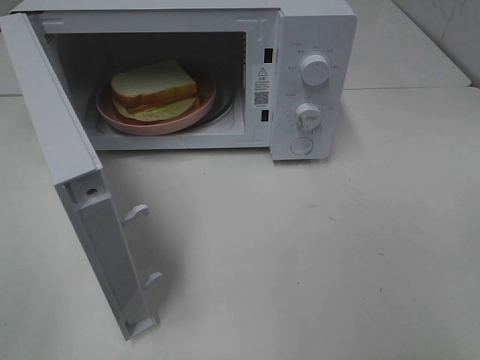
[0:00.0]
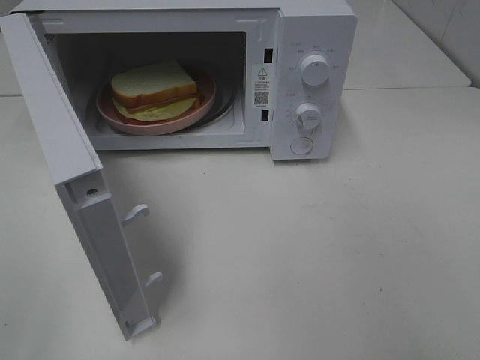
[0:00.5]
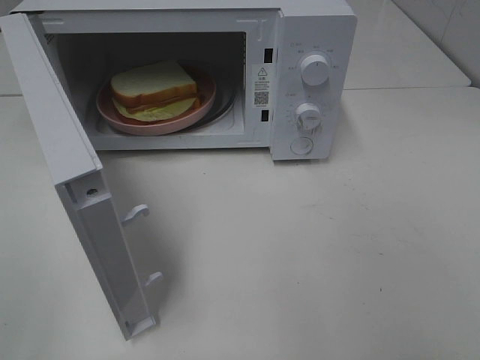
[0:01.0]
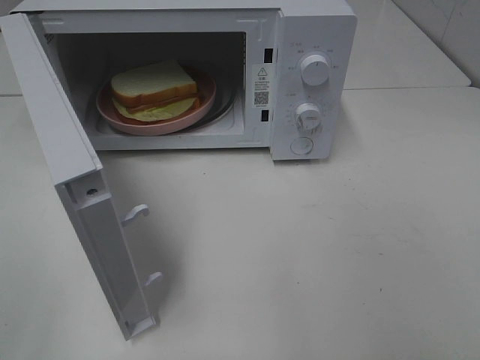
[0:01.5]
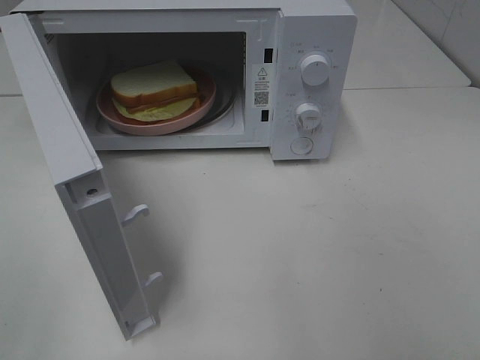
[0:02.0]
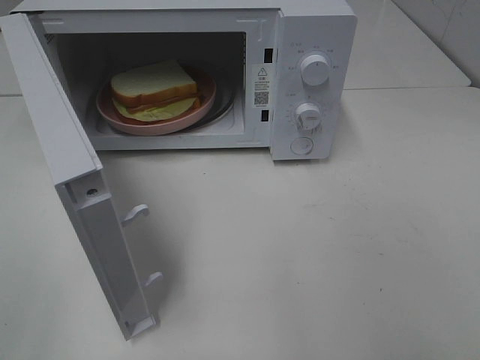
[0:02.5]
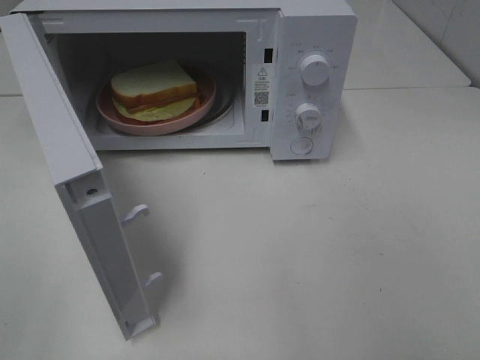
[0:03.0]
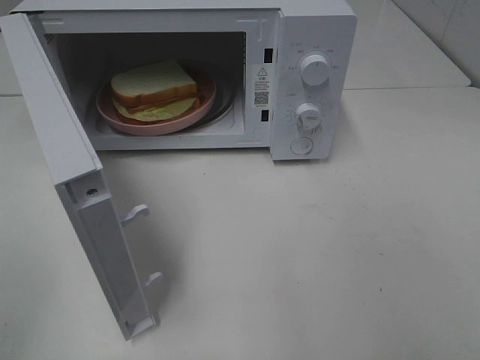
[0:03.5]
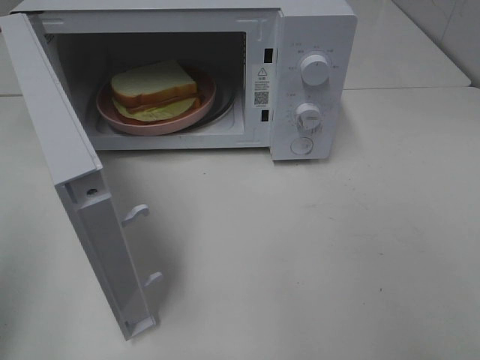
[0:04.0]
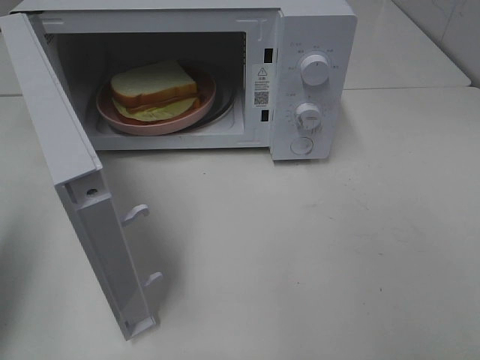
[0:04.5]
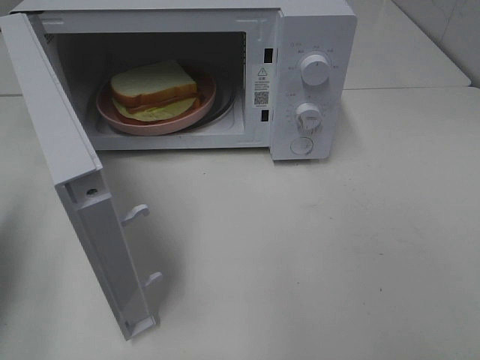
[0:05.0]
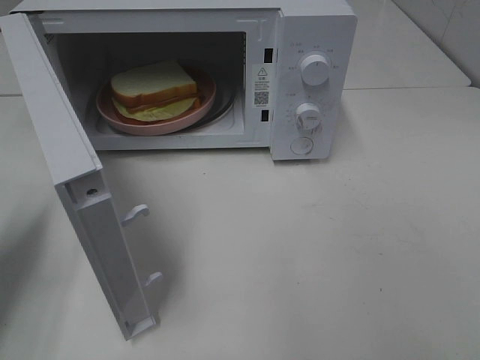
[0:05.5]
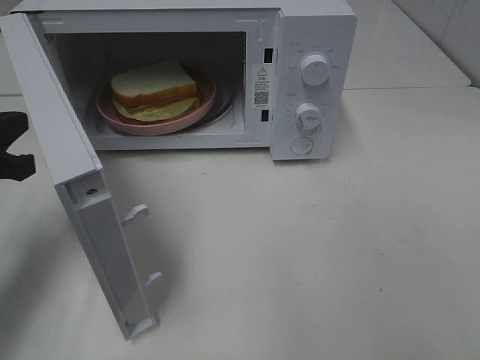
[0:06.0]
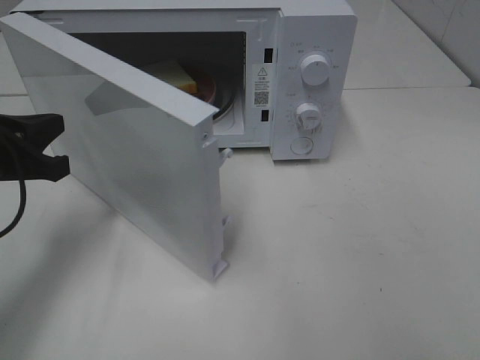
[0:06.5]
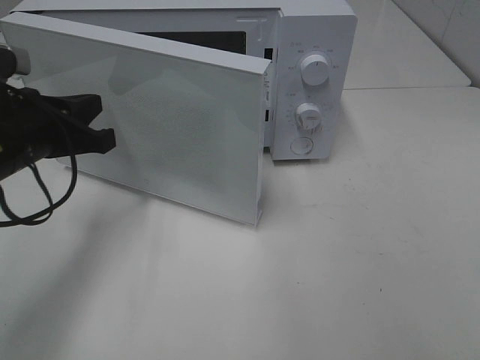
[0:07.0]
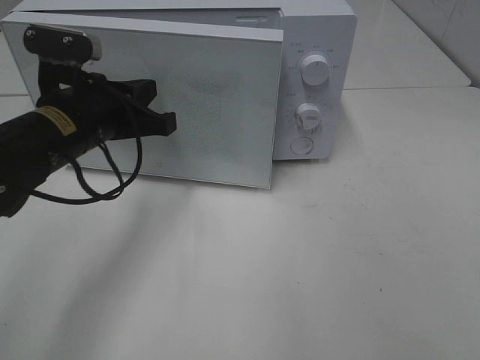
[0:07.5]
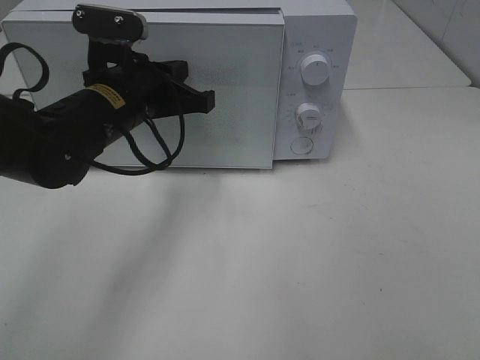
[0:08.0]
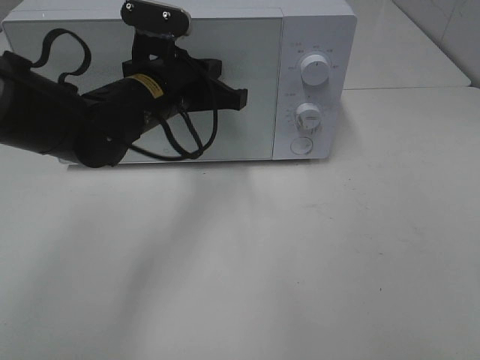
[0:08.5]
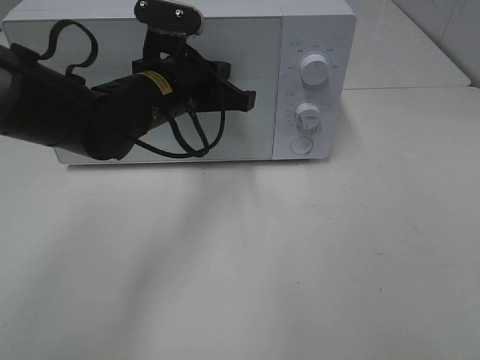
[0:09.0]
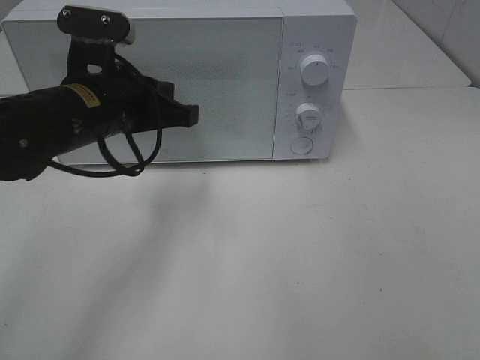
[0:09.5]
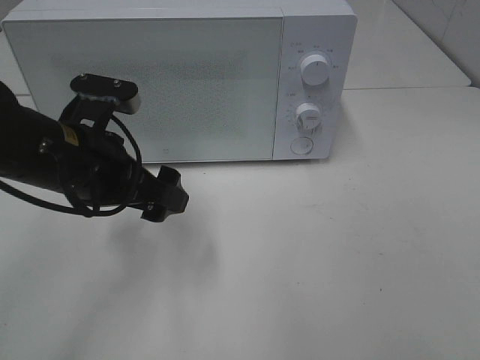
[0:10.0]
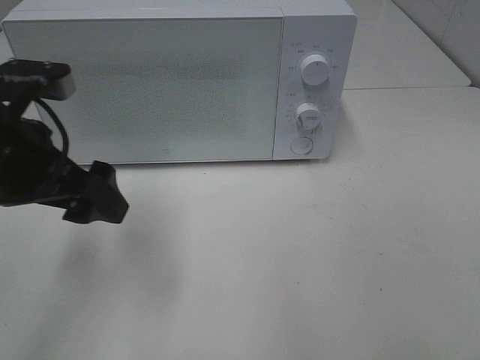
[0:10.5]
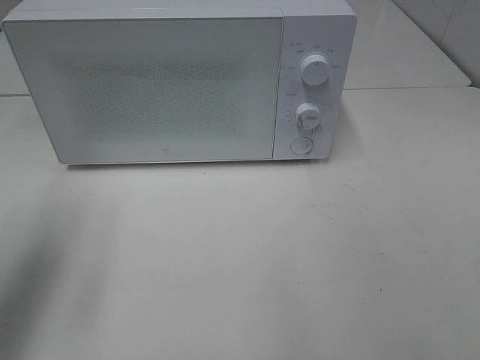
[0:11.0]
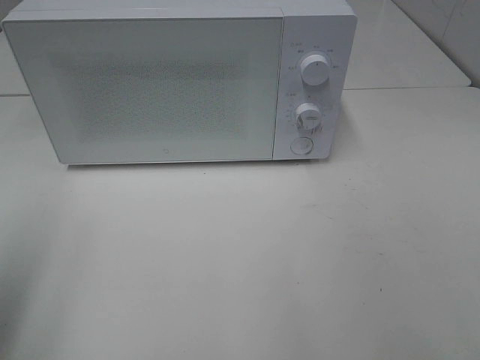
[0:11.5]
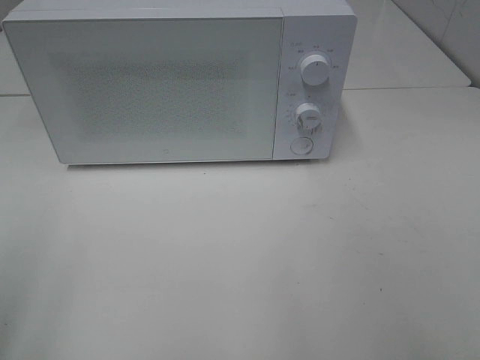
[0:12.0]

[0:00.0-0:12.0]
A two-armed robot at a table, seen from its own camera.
Task of the whole recording: Heat Sandwich.
Step, 0:00.0 to 0:09.0: Left hand: close the microwave door.
0:04.0 to 0:06.0: The left gripper shifts some 20 cm forward and downward.
0:06.0 to 0:08.0: The left gripper heads to the right and forward, covering about 20 cm.
0:08.0 to 0:10.0: The left gripper travels backward by about 5 cm, and opens its fingers.
0:10.0 to 0:12.0: The left gripper goes approximately 25 cm backward, to the left and upward.

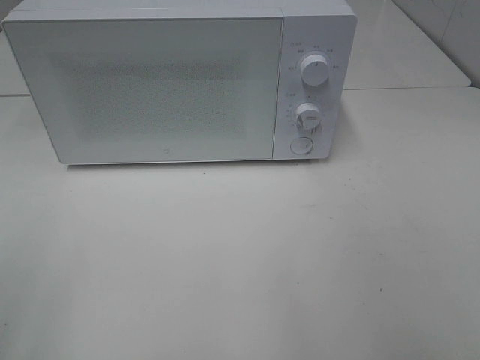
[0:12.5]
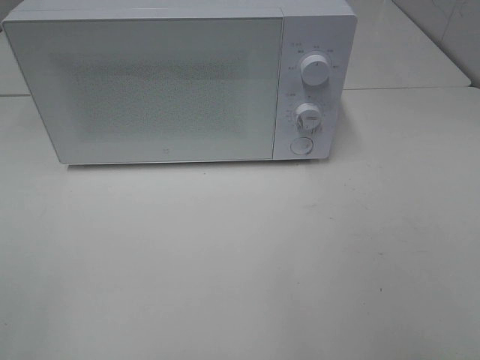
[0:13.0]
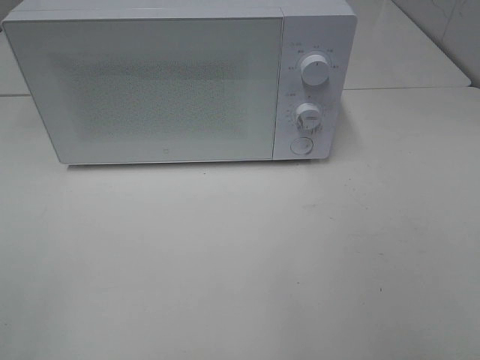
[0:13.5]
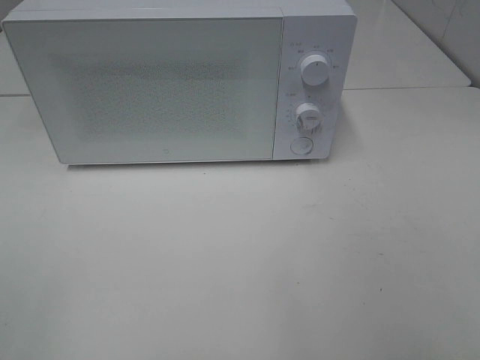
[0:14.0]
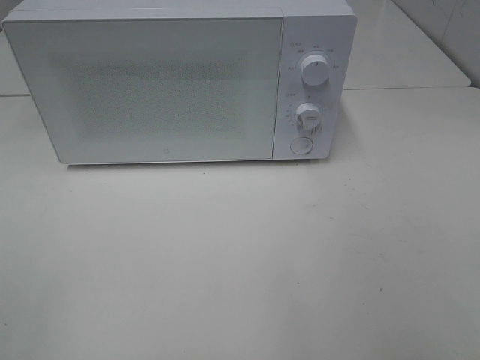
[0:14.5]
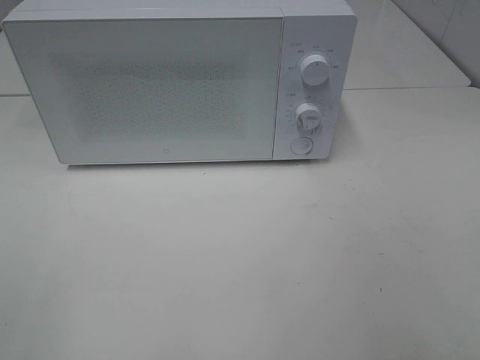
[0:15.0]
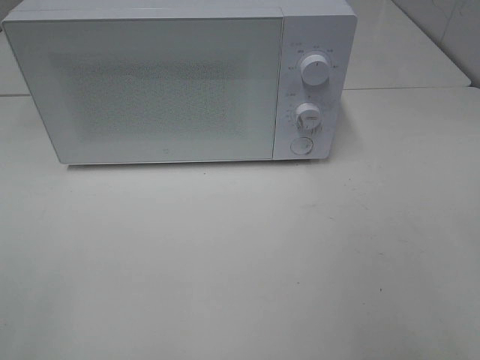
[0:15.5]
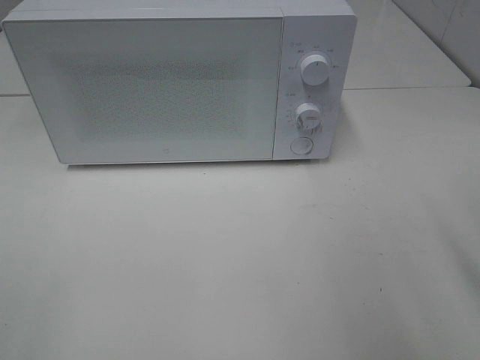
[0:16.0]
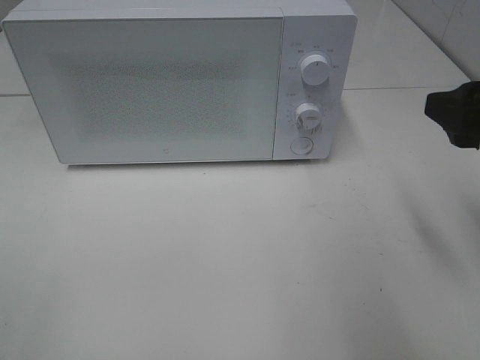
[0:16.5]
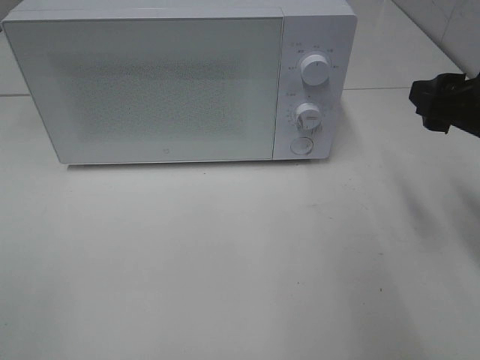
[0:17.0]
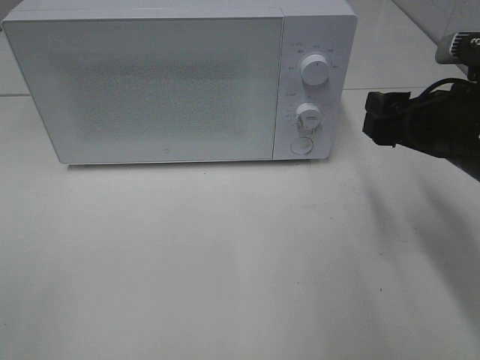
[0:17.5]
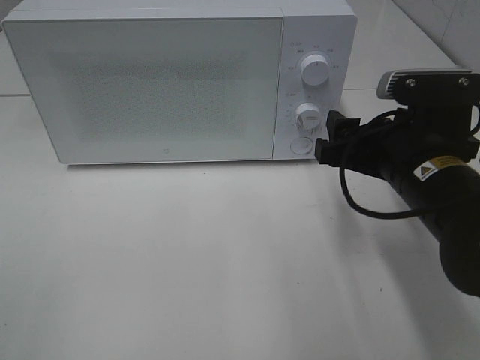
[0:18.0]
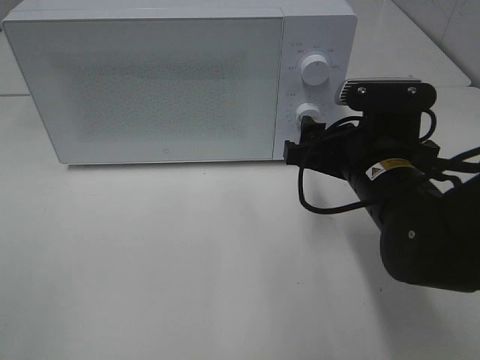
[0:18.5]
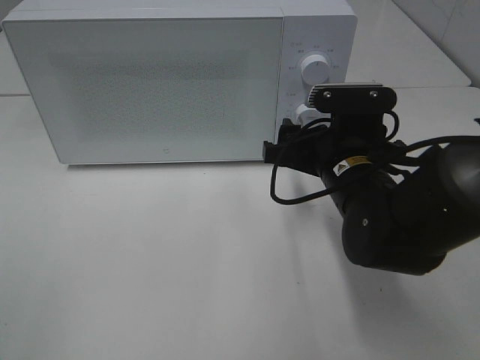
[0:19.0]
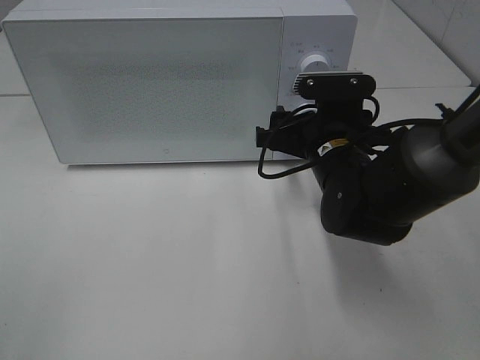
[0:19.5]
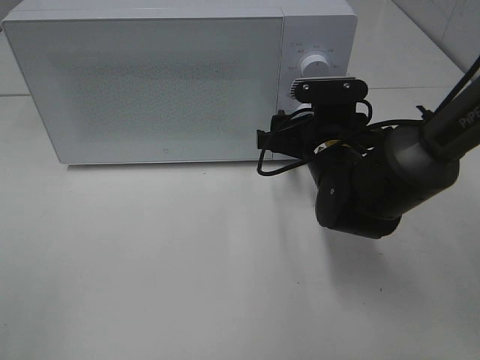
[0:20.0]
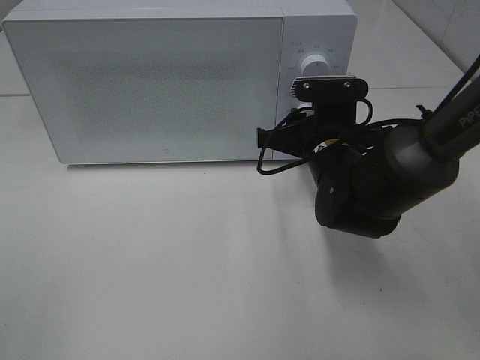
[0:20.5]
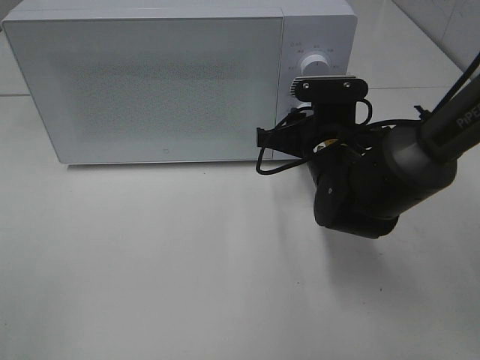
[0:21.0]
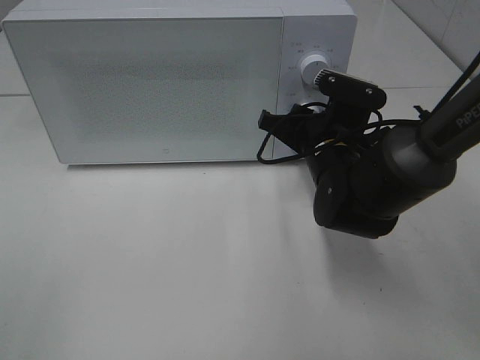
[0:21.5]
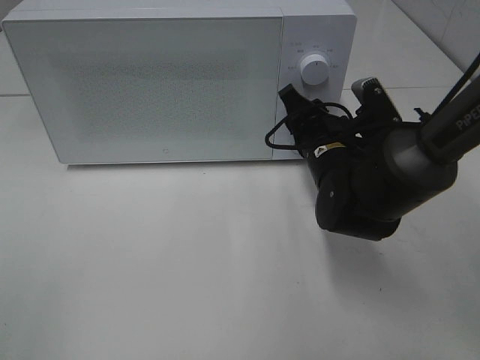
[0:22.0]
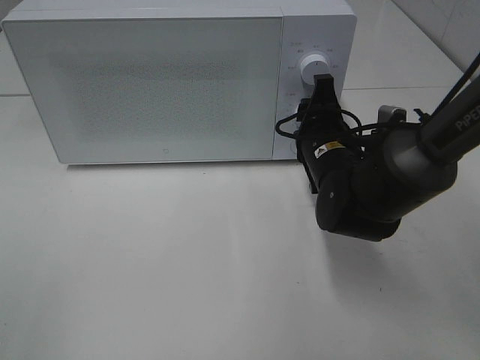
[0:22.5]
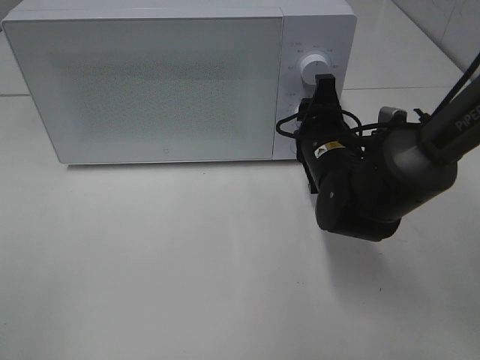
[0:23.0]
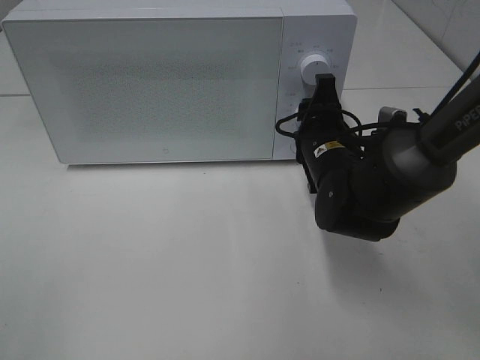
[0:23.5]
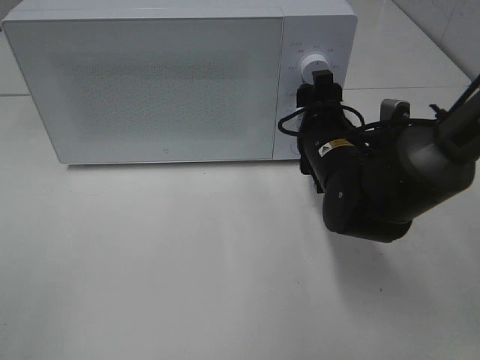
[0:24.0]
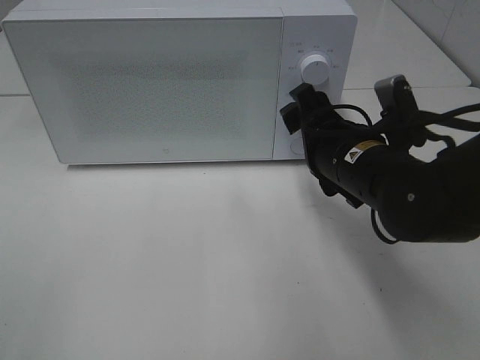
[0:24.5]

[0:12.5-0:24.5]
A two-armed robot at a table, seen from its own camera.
Task of the whole recording: Heat Sandwich.
0:14.5 to 0:16.5: The right gripper moves forward, approximately 20 cm.
0:16.5 to 0:18.5: The right gripper travels to the left, downward and forward by some 15 cm.
0:18.5 to 0:20.5: The right gripper heads forward, covering about 10 cm, and closes up.
0:22.5 to 0:24.5: The right gripper is displaced backward by roughly 5 cm, and opens its fingers.

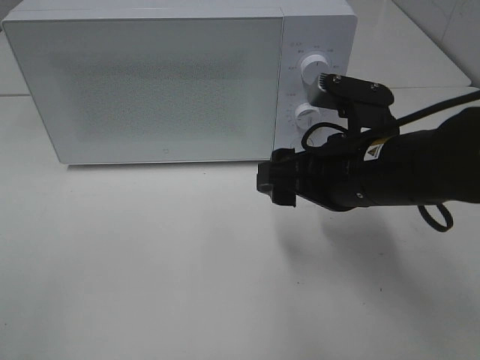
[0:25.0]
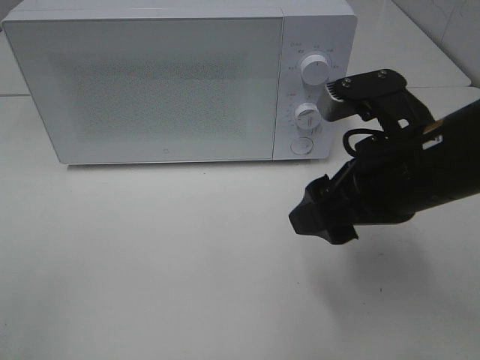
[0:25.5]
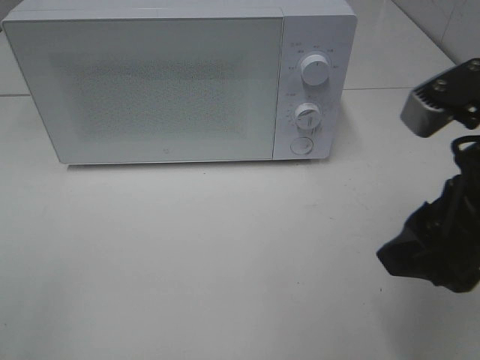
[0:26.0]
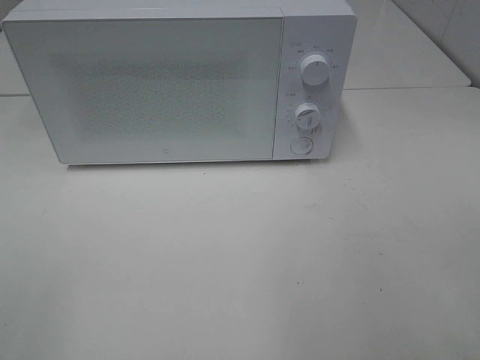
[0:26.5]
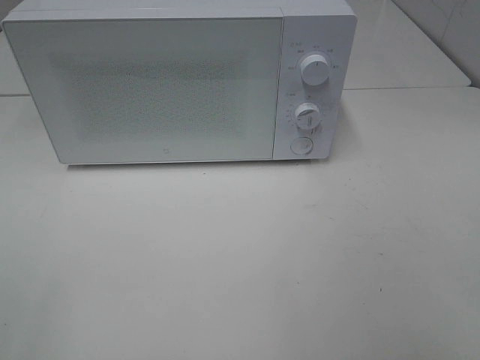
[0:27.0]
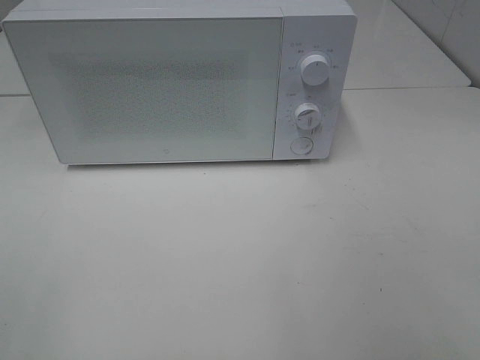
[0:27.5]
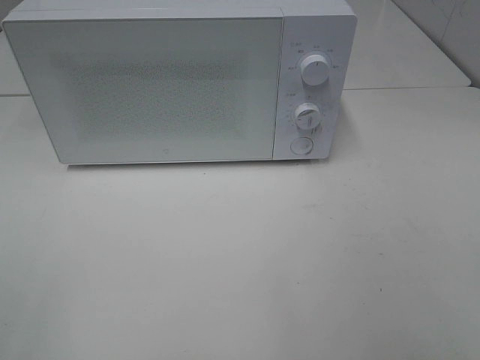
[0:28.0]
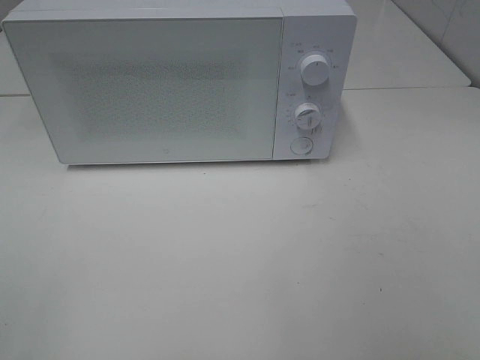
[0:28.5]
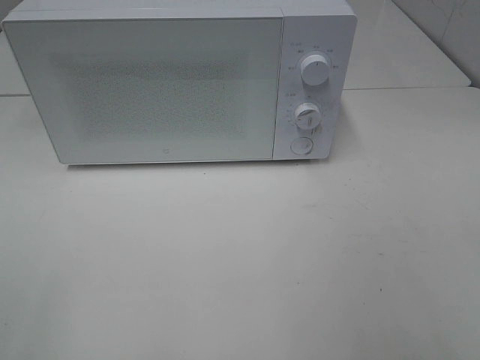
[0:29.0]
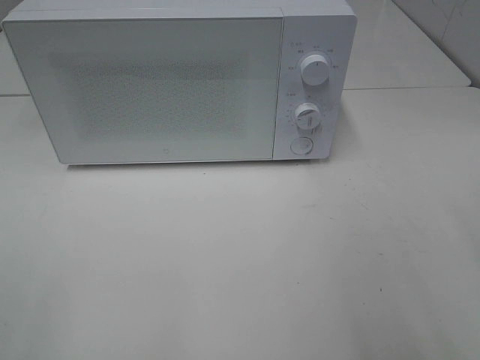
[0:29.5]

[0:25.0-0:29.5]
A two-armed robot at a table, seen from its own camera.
Task of the whole recording: Heat Sandwich.
0:25.0 to 0:27.0: The right gripper shifts roughly 25 cm backward, to the right and upward.
